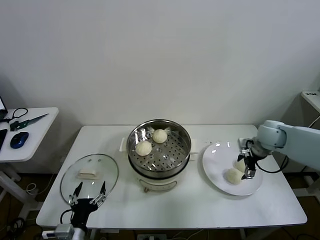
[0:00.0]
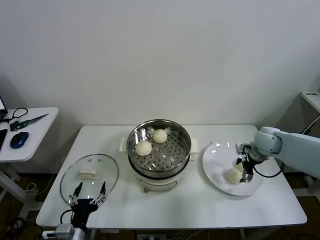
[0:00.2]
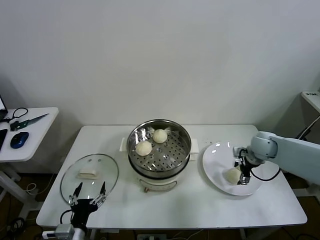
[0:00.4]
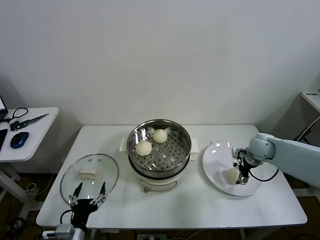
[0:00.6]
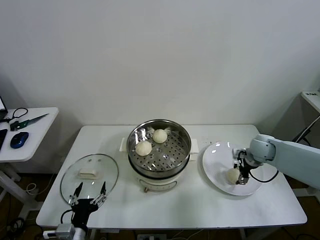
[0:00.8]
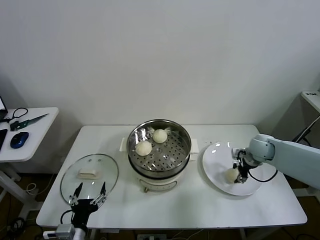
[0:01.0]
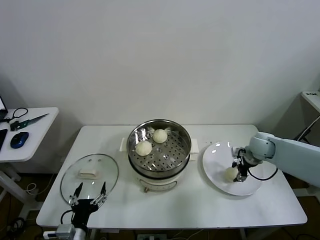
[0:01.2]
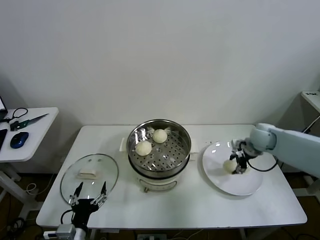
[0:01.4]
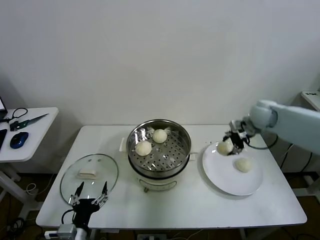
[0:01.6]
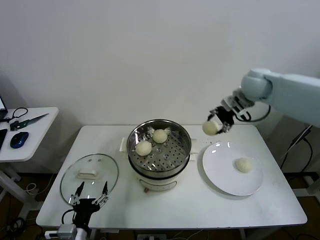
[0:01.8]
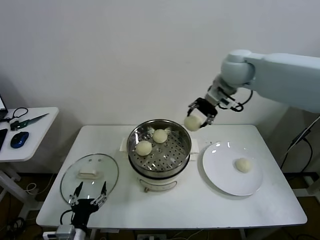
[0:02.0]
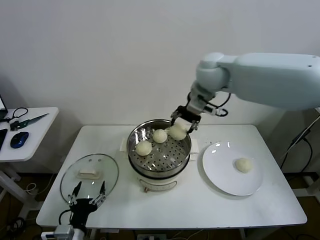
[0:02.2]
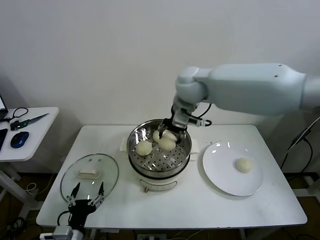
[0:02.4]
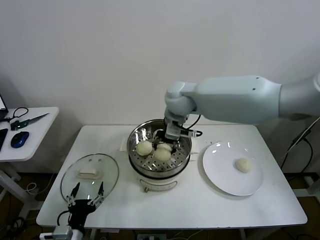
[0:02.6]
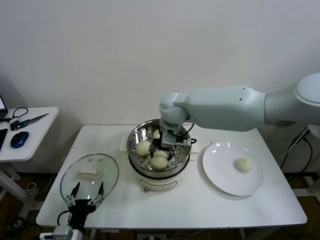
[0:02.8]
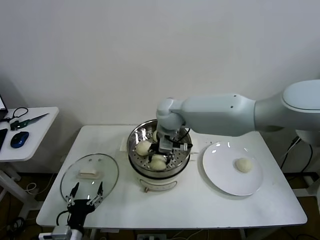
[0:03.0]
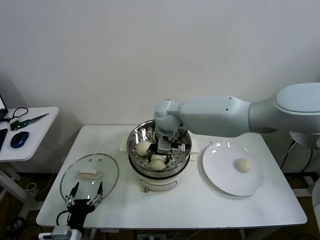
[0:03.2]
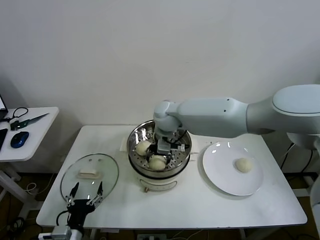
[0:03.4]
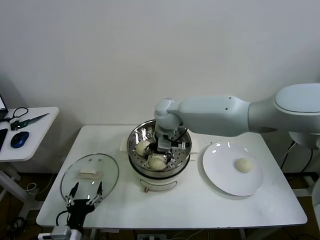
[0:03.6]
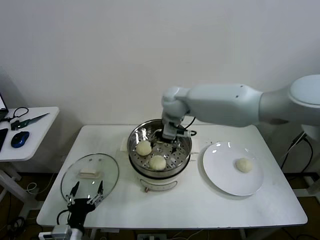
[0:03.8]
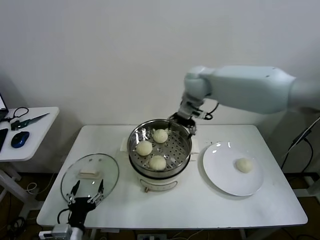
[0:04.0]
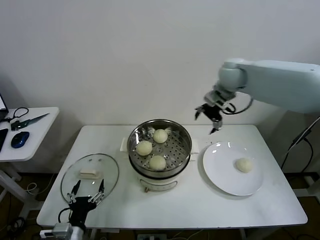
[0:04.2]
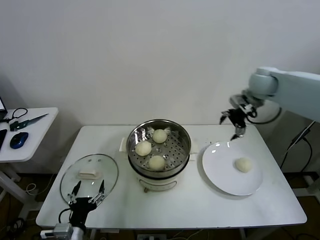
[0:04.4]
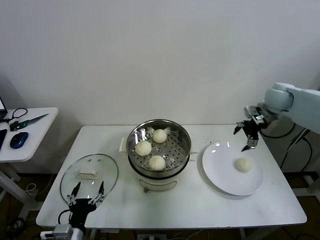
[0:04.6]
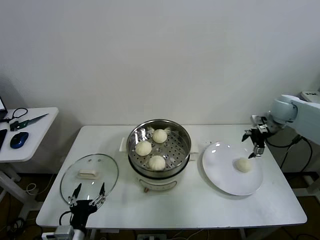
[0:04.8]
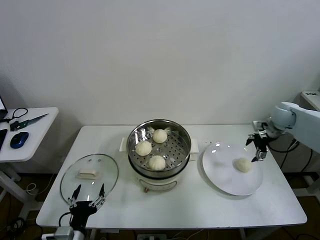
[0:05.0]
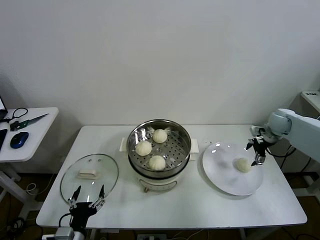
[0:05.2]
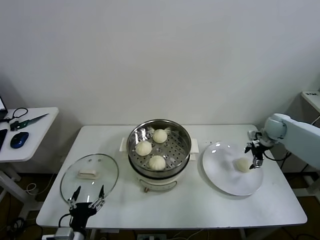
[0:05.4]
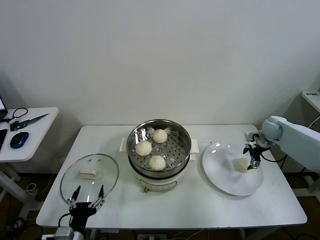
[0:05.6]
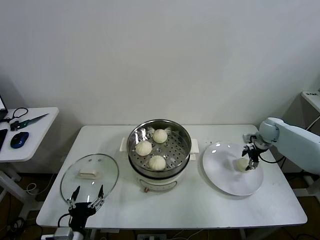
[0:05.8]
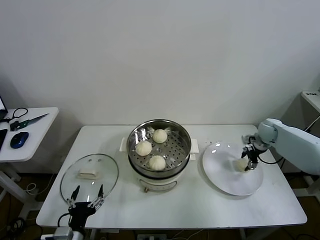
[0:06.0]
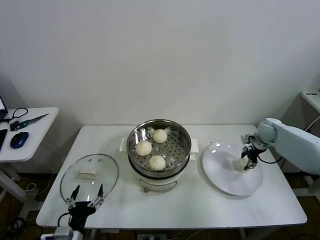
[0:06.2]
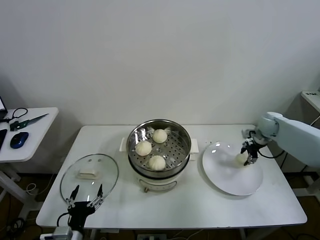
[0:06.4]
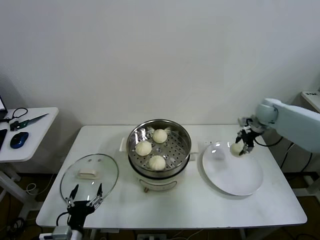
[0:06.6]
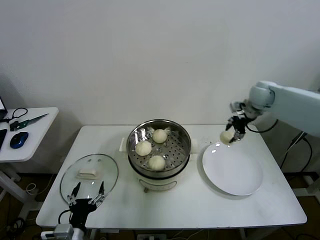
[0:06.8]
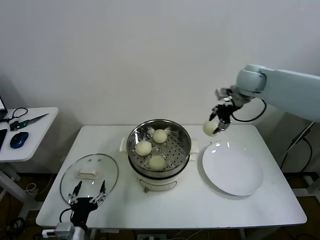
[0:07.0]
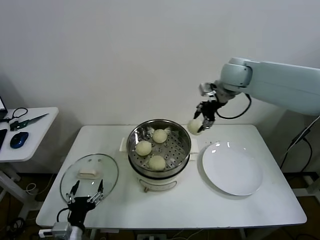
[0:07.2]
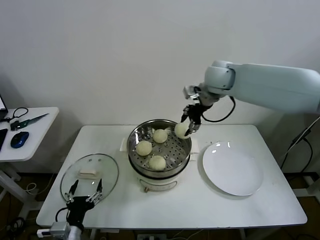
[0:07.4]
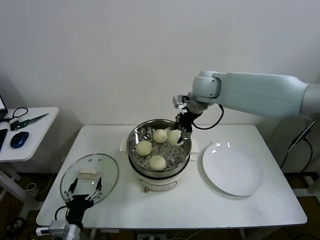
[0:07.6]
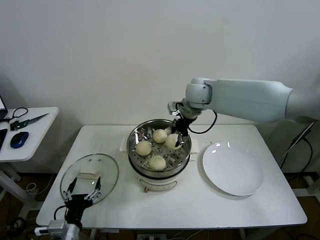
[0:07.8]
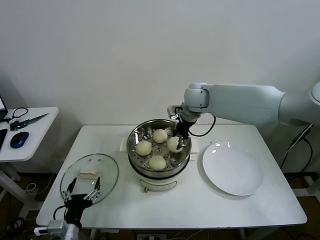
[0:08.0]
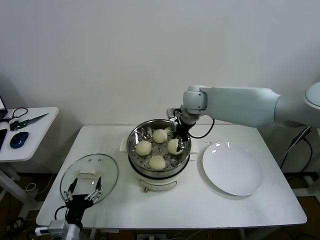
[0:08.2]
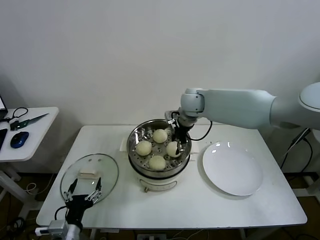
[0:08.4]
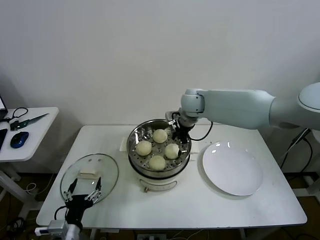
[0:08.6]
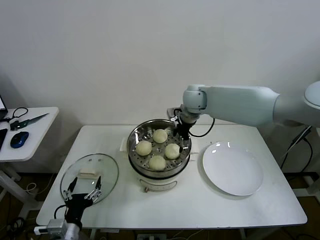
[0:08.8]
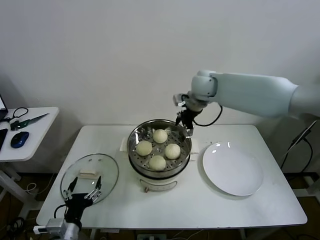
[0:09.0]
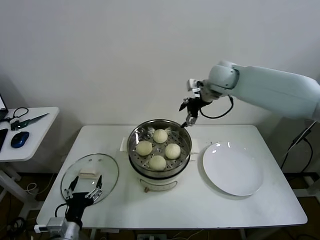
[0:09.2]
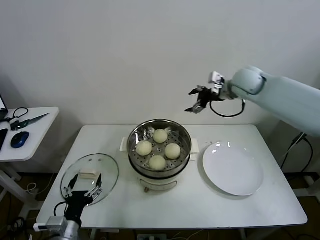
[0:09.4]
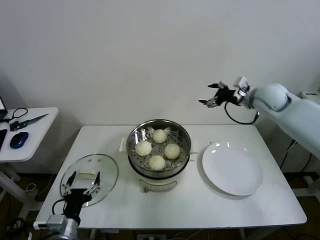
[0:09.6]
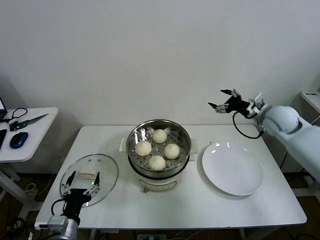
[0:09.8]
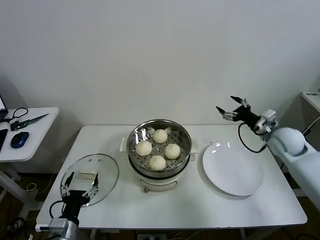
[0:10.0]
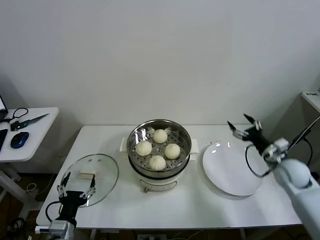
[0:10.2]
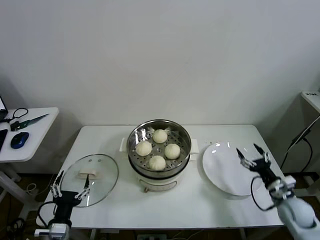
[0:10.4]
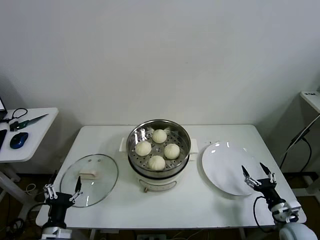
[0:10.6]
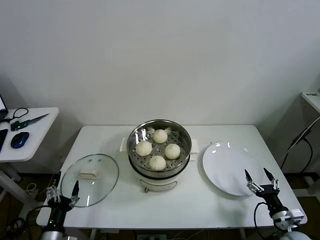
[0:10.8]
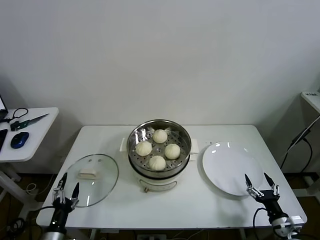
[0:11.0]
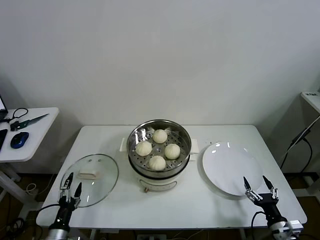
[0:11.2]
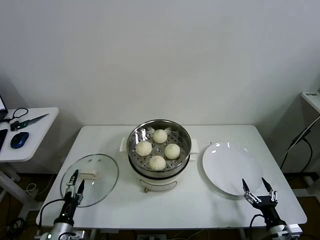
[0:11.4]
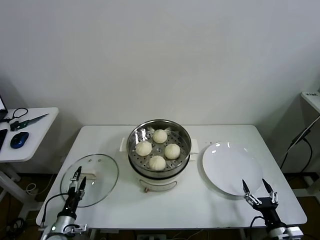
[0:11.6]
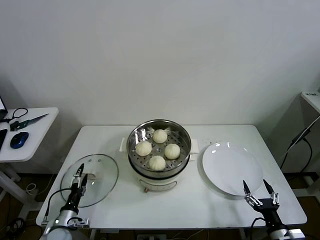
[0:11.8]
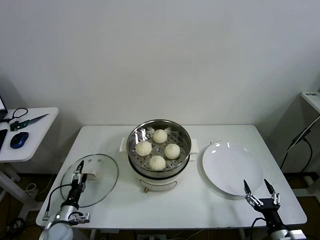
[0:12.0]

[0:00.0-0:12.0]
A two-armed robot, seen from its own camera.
Task of the whole recording: take steamed baozi put them in steamer then cover it.
Step, 0:01.0 to 0:03.6: Place the baozi on the steamer with right gripper.
Step, 0:03.8 to 0:06.0: Grasp the baozi in the plate with right gripper.
Step, 0:06.2 to 0:08.6: Place the baozi on the steamer with right gripper.
0:00.0 to 0:01.6: The right gripper heads upward and forward, covering approximately 10 cm, and closes up.
0:01.6 to 0:03.0: The right gripper heads to the left, covering about 30 cm.
0:03.0 to 0:04.4: The right gripper goes about 30 cm to the right, and opens.
0:04.4 to 0:06.0: The right gripper shifts some 25 cm downward and to the right, and closes up.
0:06.0 to 0:07.6: The right gripper goes about 35 cm to the left and upward.
0:07.6 to 0:09.0: The right gripper opens up.
0:09.0 to 0:10.4: The right gripper shifts roughly 50 cm downward, to the right and backward.
0:10.4 to 0:12.0: The left gripper goes approximately 15 cm downward, forward and to the left. Meanwhile the right gripper moves backward, some 15 cm.

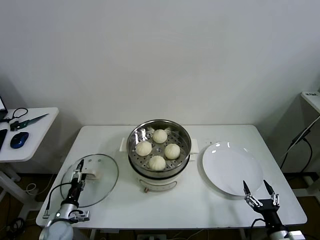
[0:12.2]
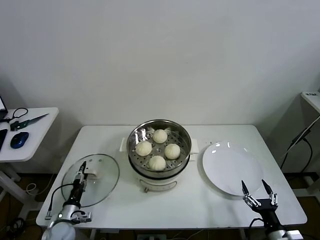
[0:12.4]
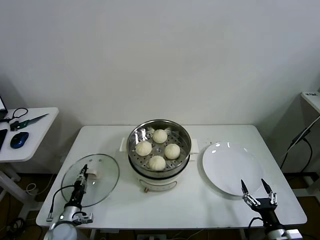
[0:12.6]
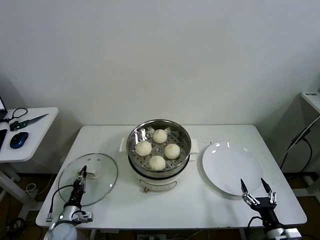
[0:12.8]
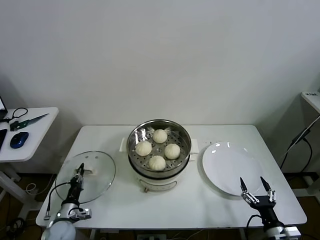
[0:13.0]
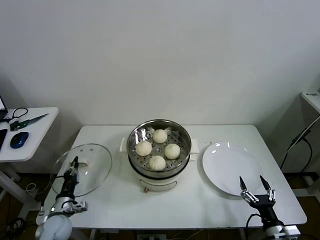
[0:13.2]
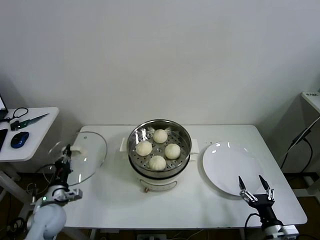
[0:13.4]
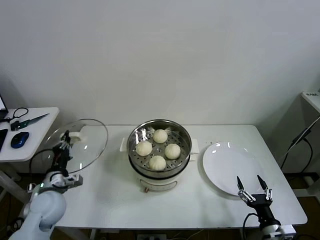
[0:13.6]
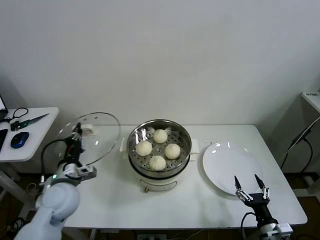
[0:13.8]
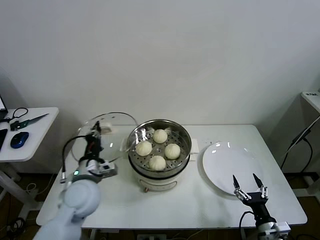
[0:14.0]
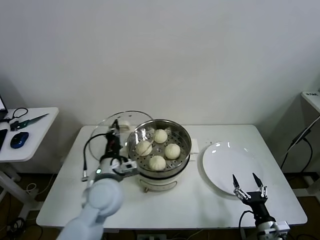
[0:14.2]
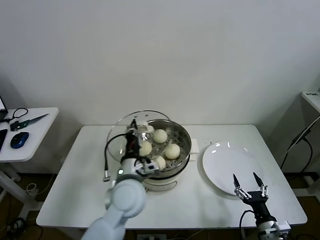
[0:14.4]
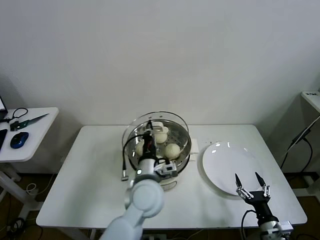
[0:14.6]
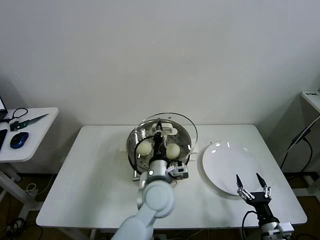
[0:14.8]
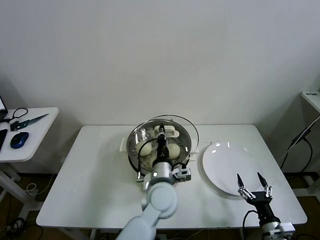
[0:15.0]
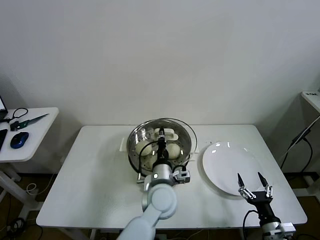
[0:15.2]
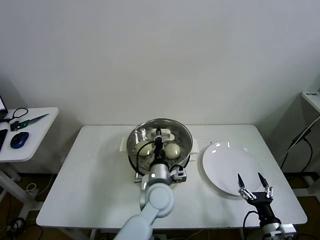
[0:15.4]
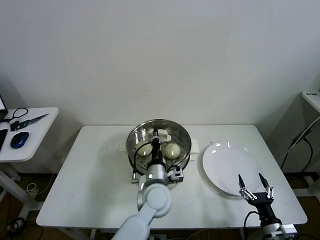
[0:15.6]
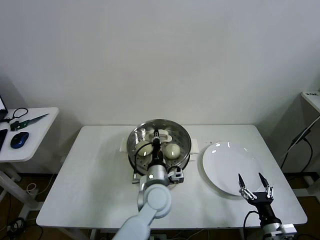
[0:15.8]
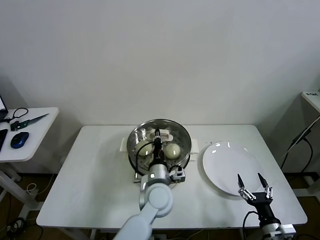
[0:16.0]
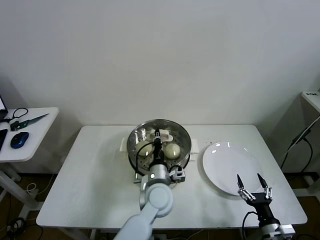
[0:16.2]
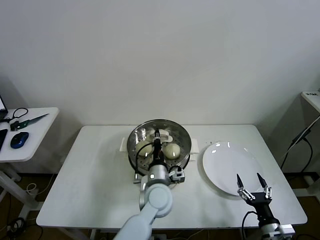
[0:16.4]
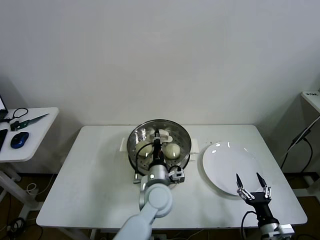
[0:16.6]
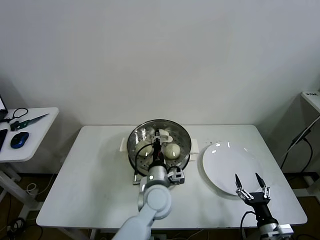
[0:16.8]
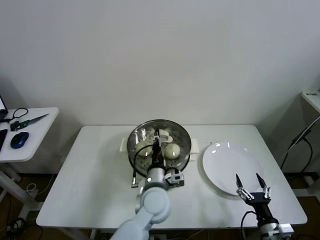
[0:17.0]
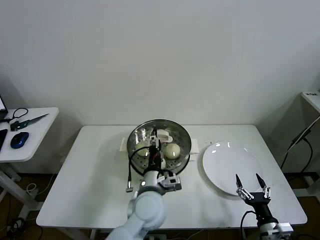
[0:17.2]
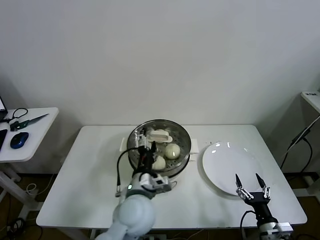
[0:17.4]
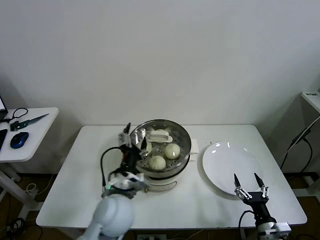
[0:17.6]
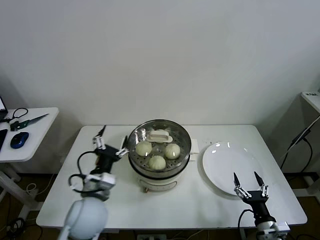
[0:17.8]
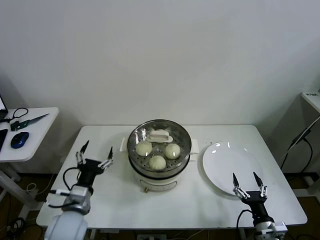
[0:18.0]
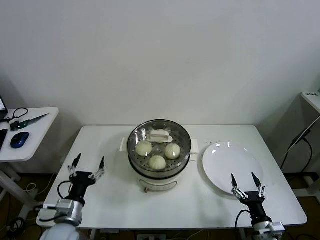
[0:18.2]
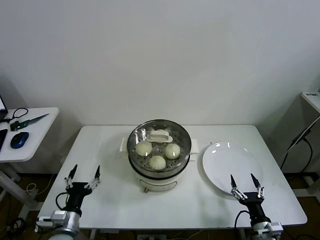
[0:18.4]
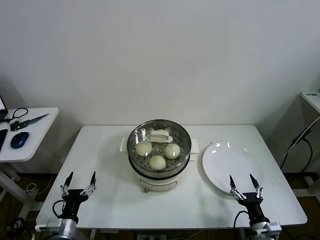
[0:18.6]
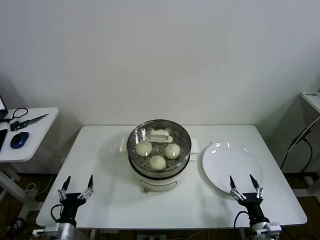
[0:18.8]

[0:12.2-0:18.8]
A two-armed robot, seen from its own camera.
Task of the whole recording: take steamed baozi put them in steamer then cover it.
Step, 0:13.0 to 0:17.2: Place the pot lid on the steamer with left gripper.
0:12.2 to 0:13.8: The left gripper heads upward, covering some 20 cm, and closes its fingers.
0:13.8 to 0:15.4: The left gripper goes some 30 cm to the right.
0:15.4 to 0:17.2: The left gripper opens up.
0:17.2 to 0:18.8: The left gripper is displaced to the left and downward by about 30 cm, and opens its fingers.
